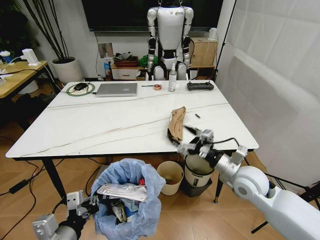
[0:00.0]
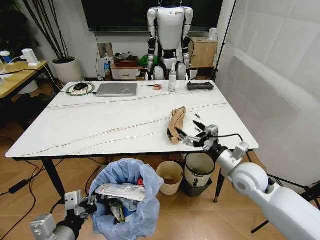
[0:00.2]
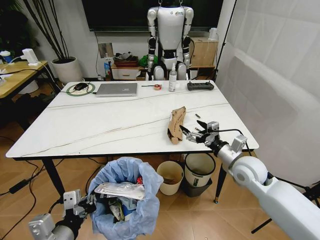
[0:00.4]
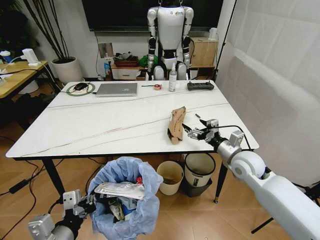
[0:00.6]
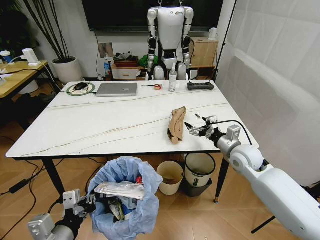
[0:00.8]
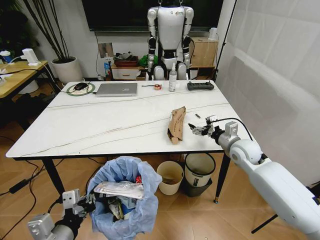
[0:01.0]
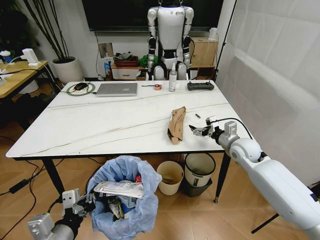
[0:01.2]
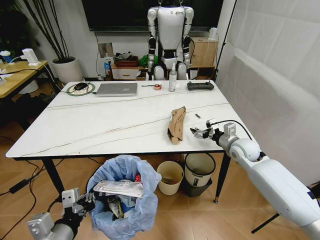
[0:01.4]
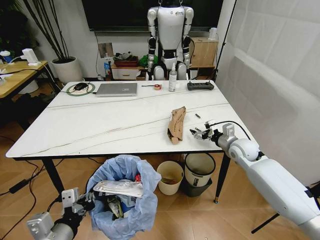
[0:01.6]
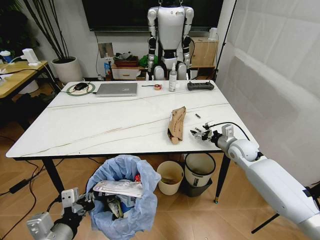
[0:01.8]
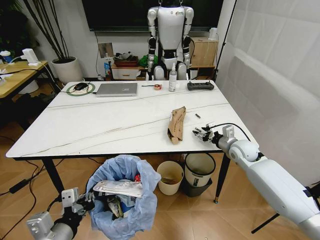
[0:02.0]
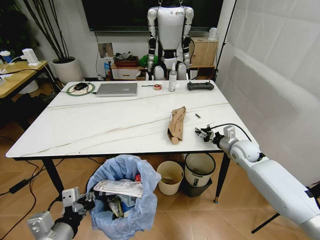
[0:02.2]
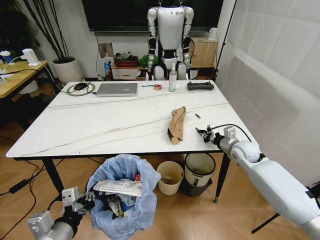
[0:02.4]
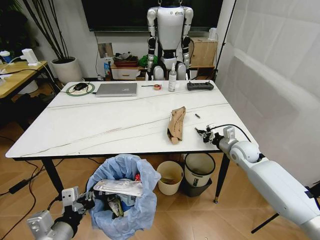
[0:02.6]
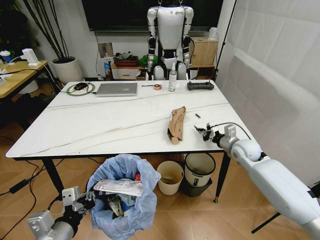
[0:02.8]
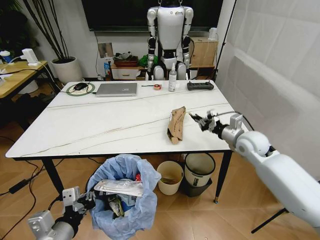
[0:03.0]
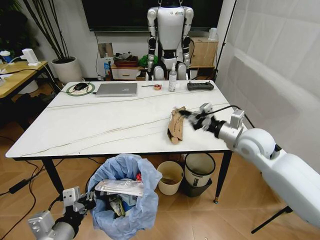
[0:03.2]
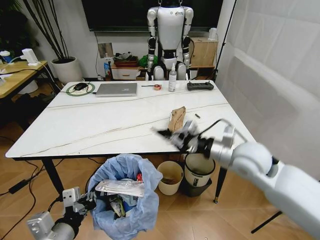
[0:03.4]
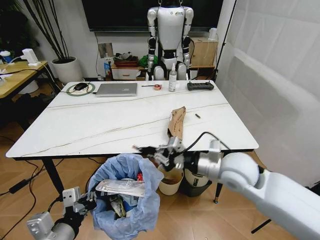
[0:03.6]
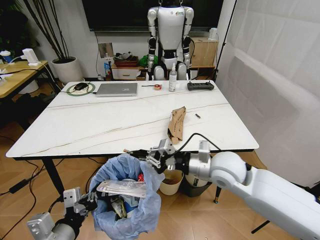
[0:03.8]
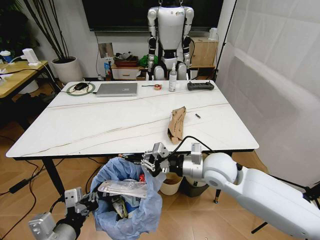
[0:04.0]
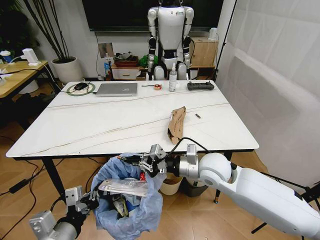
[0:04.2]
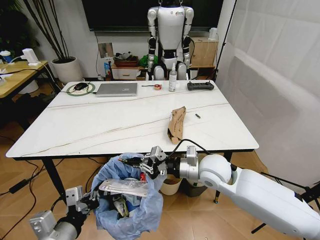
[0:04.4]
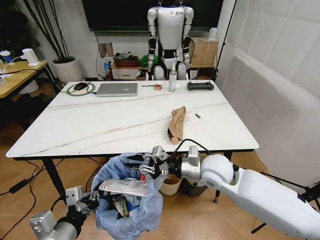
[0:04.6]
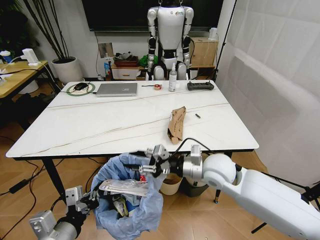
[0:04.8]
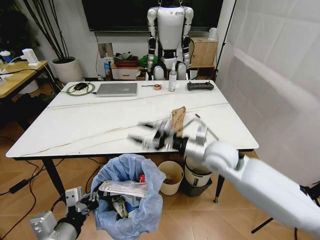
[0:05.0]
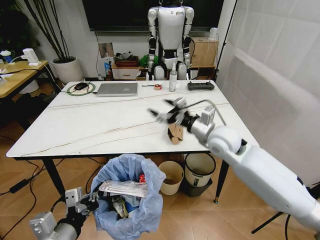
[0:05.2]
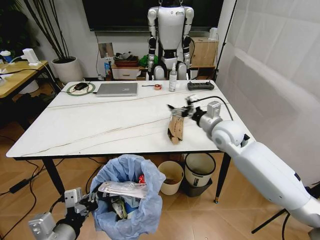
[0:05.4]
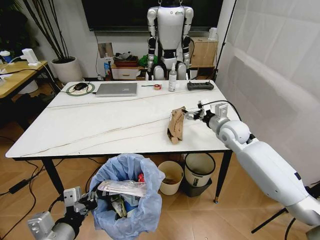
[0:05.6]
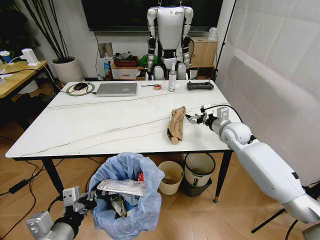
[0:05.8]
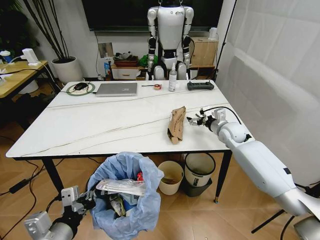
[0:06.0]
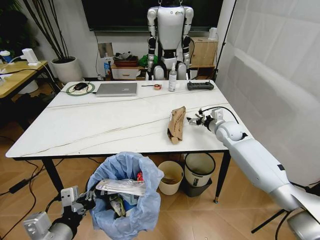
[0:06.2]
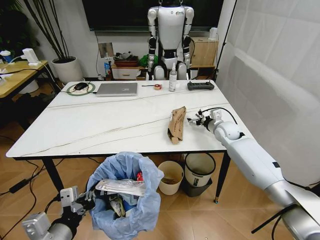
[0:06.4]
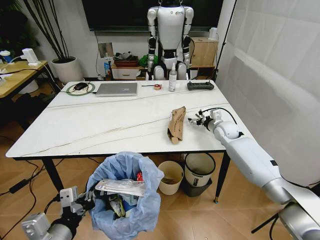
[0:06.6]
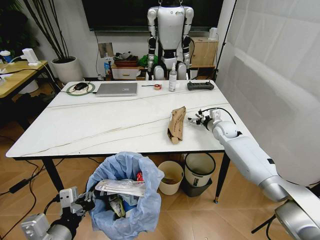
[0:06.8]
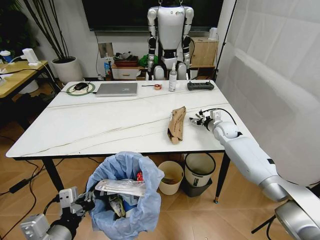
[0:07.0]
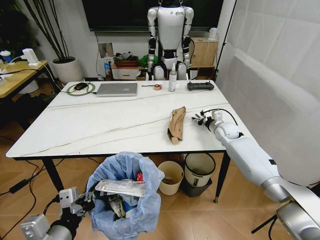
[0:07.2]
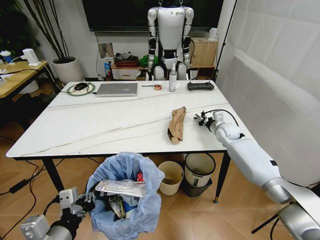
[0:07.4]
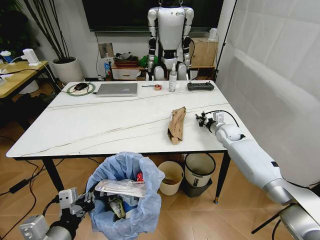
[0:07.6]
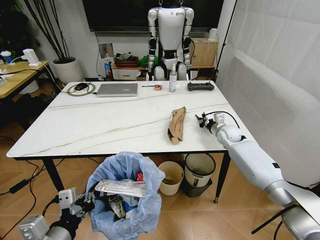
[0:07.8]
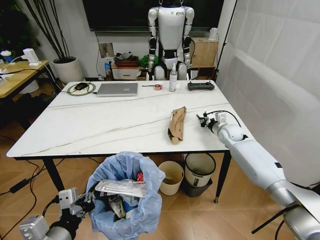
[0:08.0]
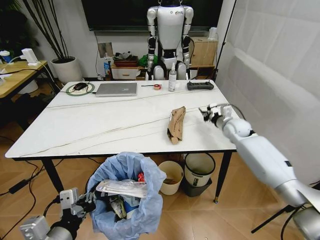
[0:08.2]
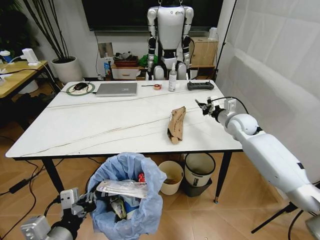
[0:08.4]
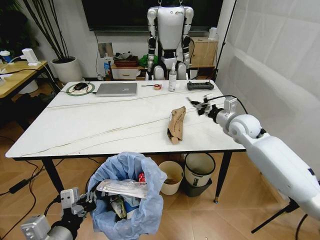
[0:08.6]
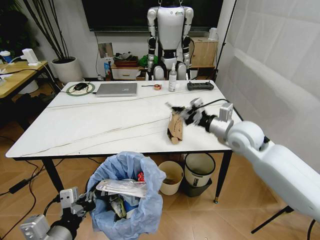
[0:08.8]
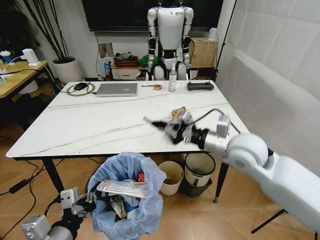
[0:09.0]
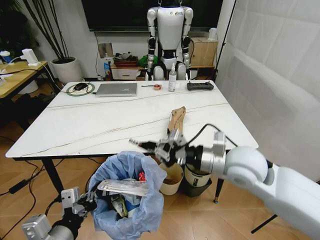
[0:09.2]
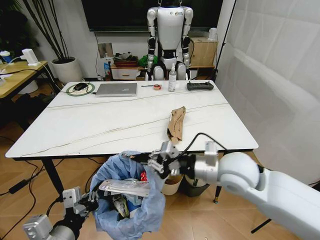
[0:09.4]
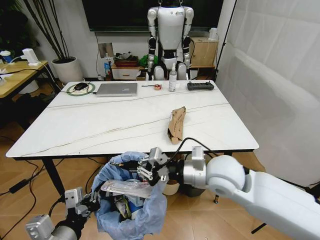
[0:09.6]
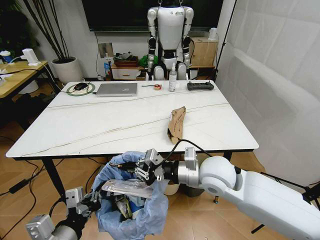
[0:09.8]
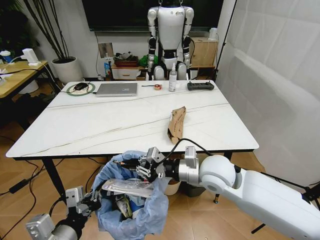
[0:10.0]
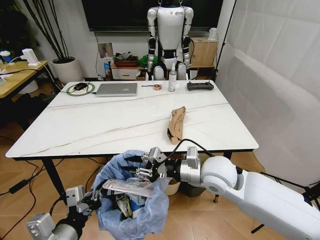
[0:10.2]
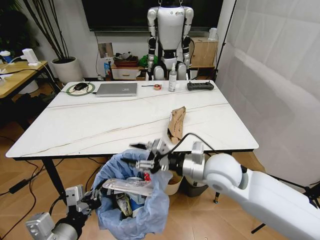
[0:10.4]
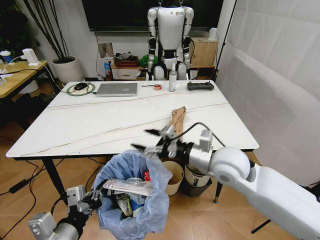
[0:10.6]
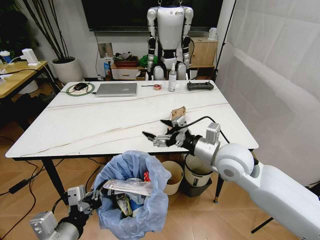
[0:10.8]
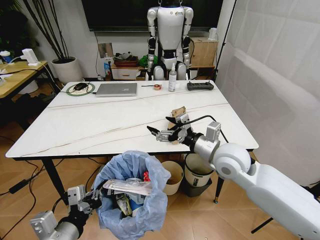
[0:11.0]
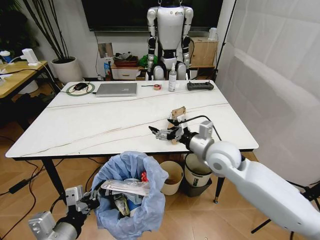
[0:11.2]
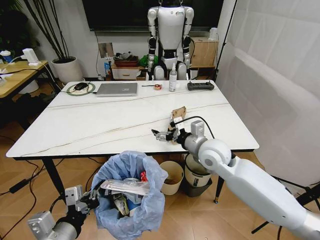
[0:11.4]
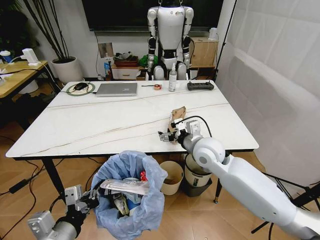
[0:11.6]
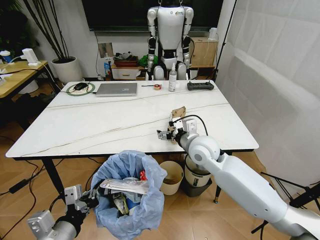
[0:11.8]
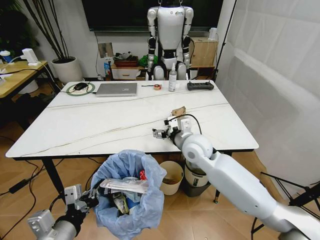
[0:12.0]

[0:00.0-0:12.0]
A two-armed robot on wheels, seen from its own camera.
Task of the whole recording: Pick up the trash bin and place the trash from the table into it.
0:00.0 to 0:01.6: The right gripper goes some 15 cm forward.
0:01.6 to 0:03.0: The right gripper closes up.
0:03.0 to 0:04.4: The right gripper moves to the left and backward, approximately 20 cm.
0:04.4 to 0:06.0: The right gripper goes some 20 cm forward and to the right, and opens its fingers.
0:06.0 to 0:07.6: The right gripper changes place by roughly 5 cm, and closes up.
0:07.6 to 0:09.0: The right gripper is displaced backward and upward by roughly 30 cm.
0:09.0 to 0:10.4: The right gripper goes approximately 10 cm to the left and downward, and opens.
0:10.4 to 0:12.0: The right gripper is displaced forward by approximately 10 cm, and opens.

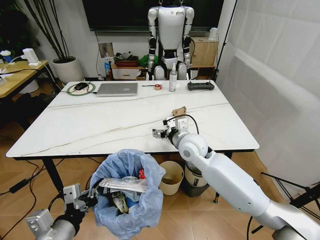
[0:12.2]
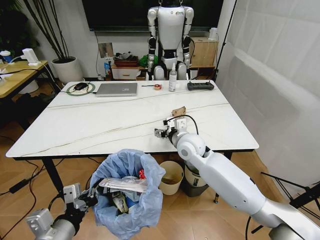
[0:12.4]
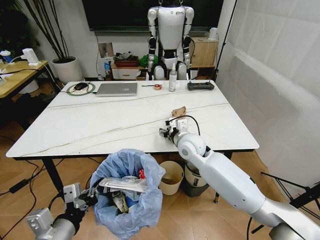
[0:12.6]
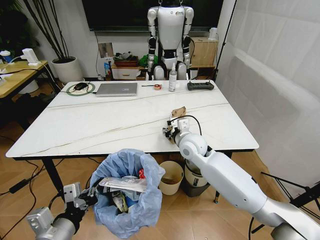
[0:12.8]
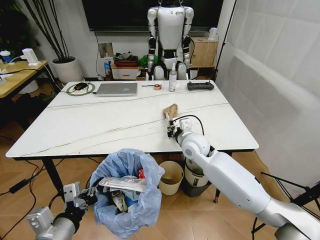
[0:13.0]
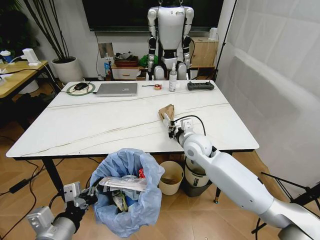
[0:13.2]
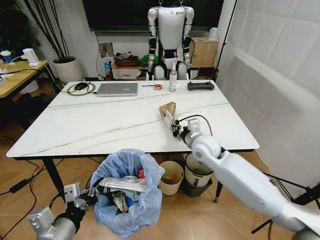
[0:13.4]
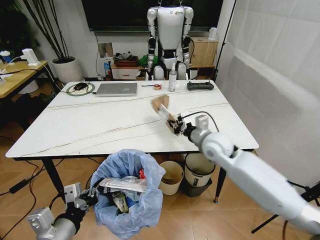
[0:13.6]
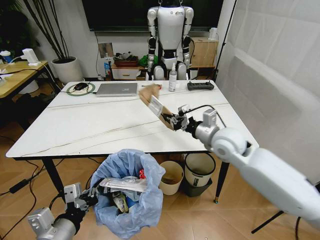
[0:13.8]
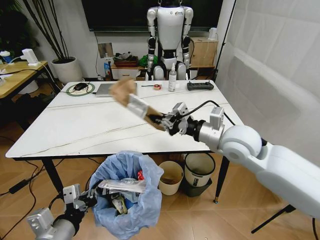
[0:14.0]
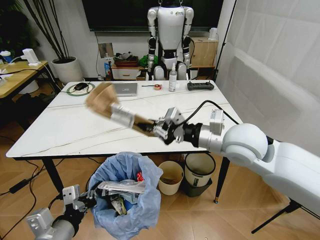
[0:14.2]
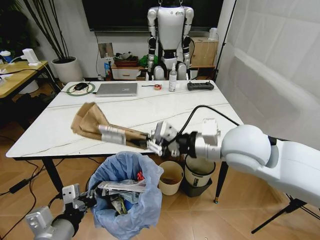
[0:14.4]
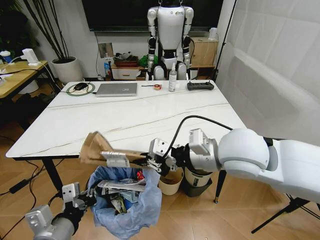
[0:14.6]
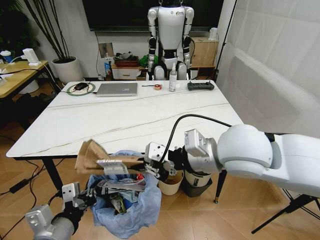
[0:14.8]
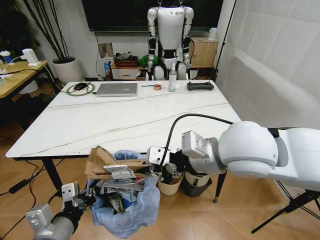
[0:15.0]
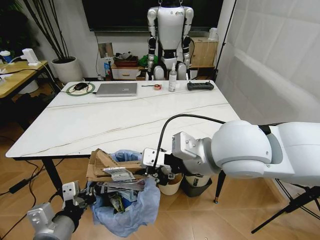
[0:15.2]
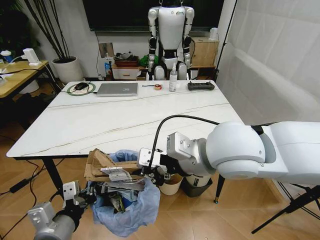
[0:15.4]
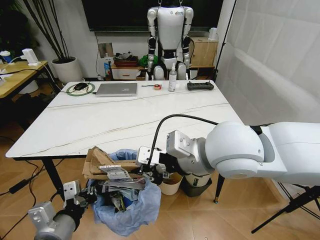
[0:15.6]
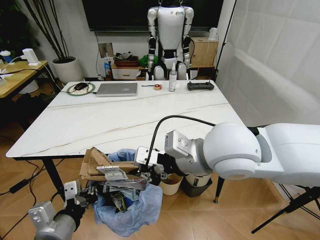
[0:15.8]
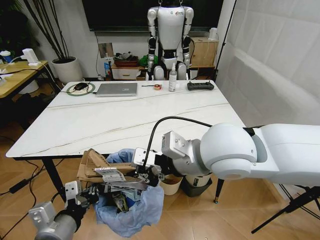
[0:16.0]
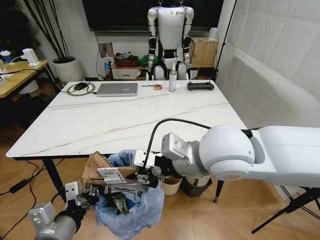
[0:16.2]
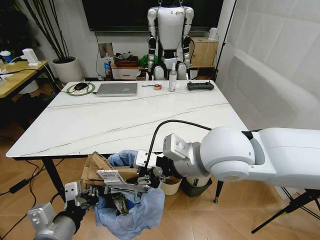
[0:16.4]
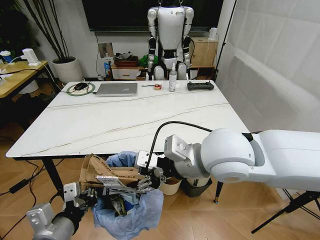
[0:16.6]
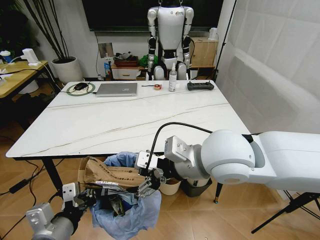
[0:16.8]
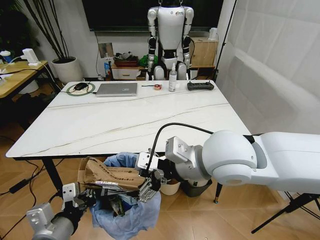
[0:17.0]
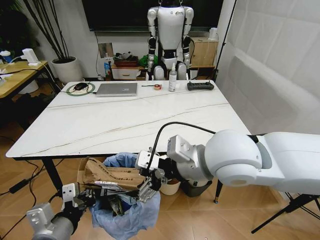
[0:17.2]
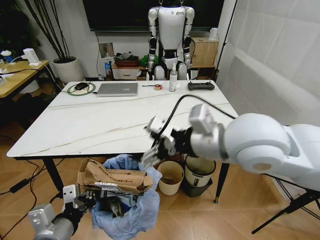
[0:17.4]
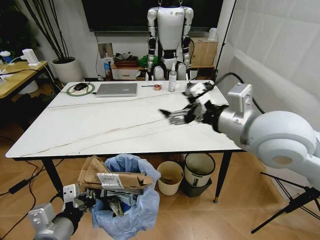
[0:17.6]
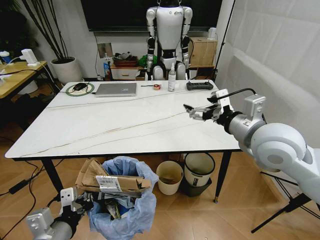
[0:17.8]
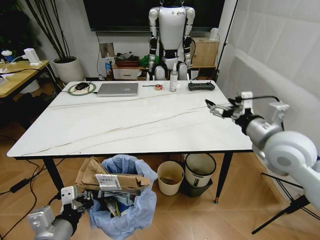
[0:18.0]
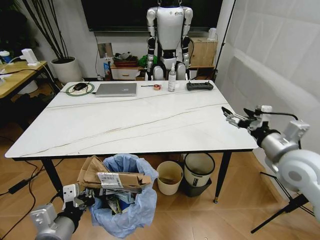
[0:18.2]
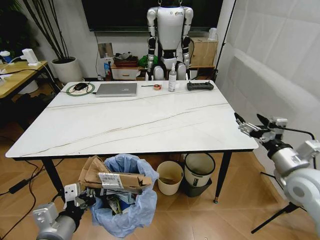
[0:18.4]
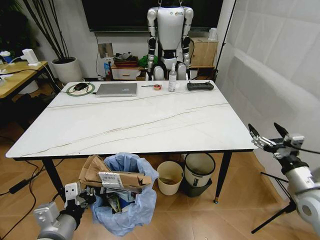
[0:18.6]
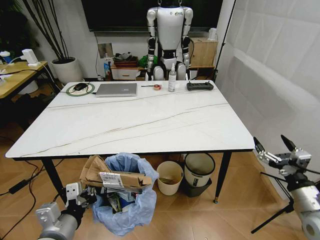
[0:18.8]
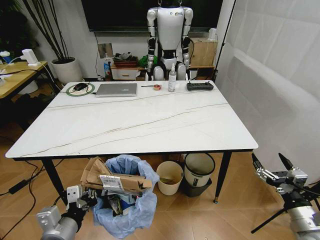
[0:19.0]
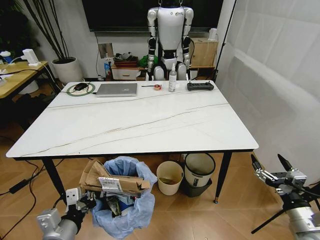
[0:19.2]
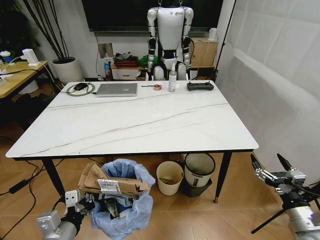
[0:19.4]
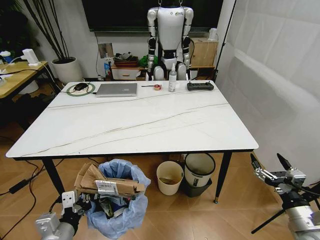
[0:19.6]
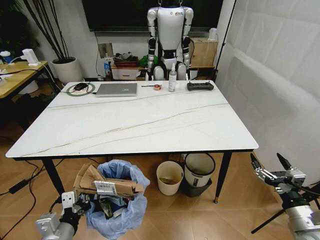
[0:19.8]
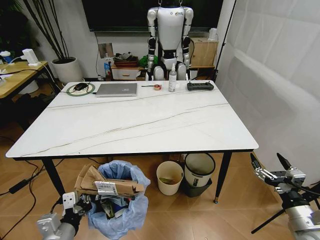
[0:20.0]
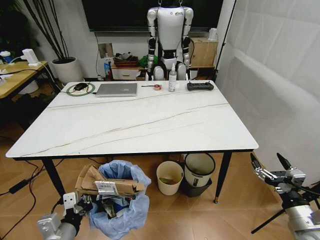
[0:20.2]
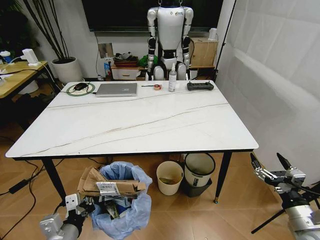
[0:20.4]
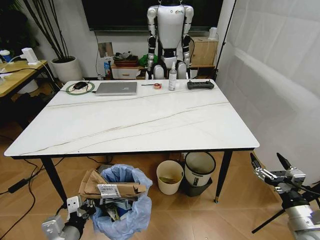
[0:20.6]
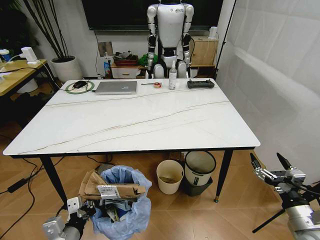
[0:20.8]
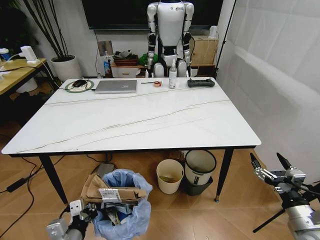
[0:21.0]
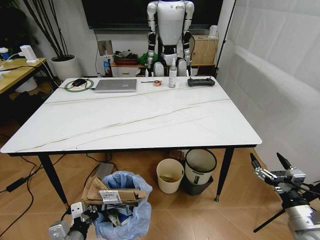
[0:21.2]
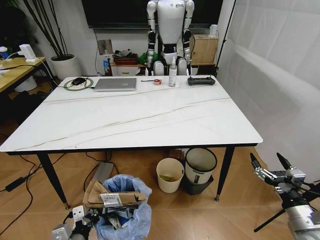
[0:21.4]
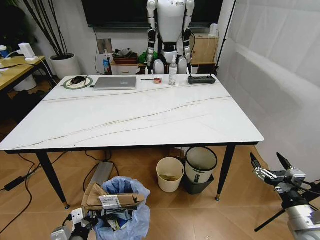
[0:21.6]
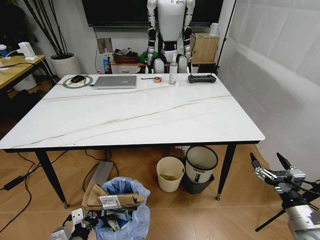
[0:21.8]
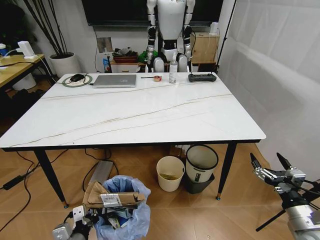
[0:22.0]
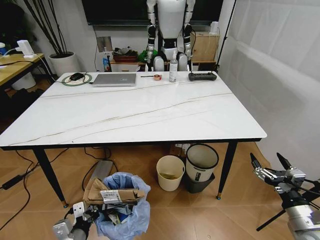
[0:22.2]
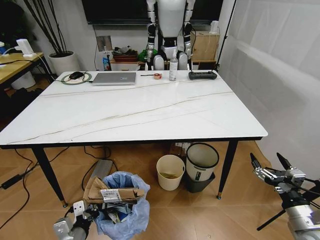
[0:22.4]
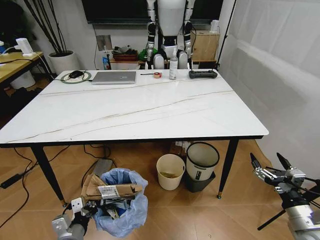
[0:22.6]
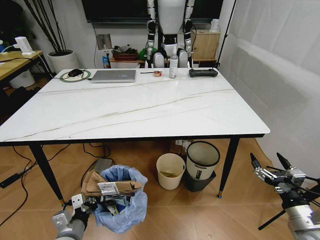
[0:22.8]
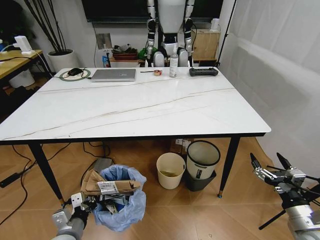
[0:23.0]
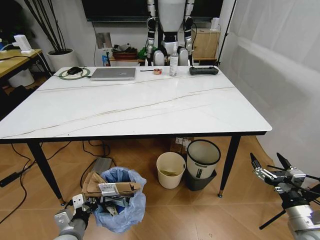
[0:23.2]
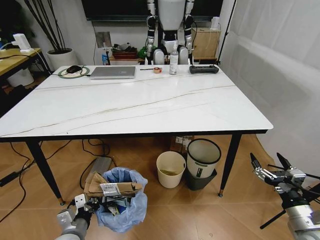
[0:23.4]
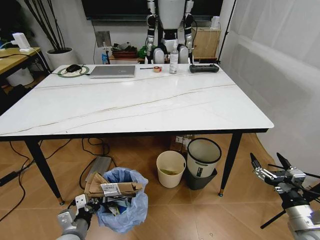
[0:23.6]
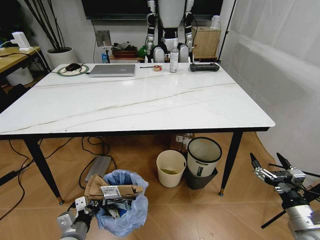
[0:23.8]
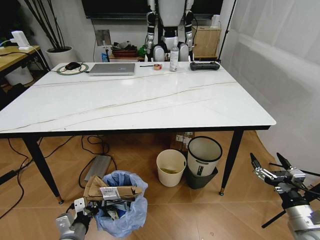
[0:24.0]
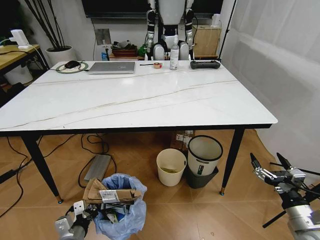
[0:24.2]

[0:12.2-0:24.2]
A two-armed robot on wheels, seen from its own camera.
Task of the whole recording: Pick up the trash bin and place the trash from the table into it.
0:12.2 to 0:13.8: The right gripper goes roughly 10 cm to the right and upward, and closes its fingers.
0:13.8 to 0:15.2: The right gripper heads upward, backward and to the left, covering approximately 20 cm.
0:15.2 to 0:16.6: The right gripper opens its fingers.
0:16.6 to 0:18.2: The right gripper moves to the right and downward, about 25 cm, and opens.
0:18.2 to 0:19.8: The right gripper heads downward and backward, covering some 20 cm. Meanwhile the left gripper travels downward by some 5 cm.
0:19.8 to 0:21.2: The left gripper shifts roughly 5 cm downward.
